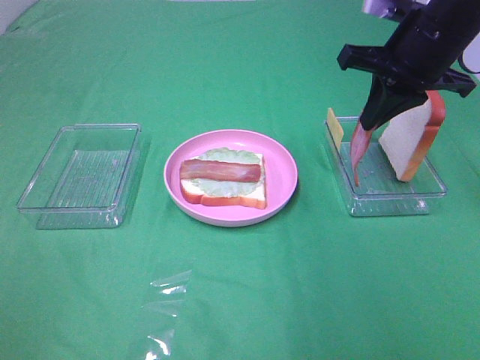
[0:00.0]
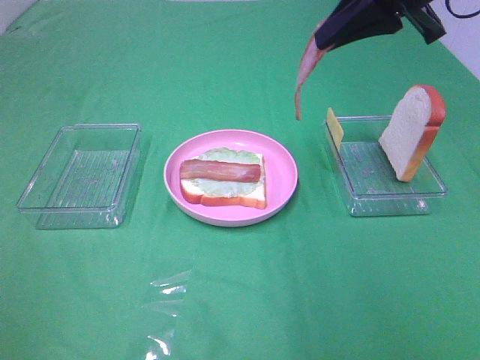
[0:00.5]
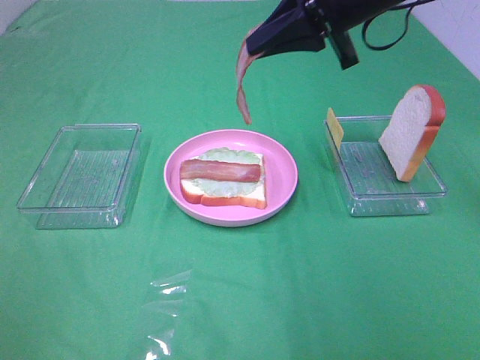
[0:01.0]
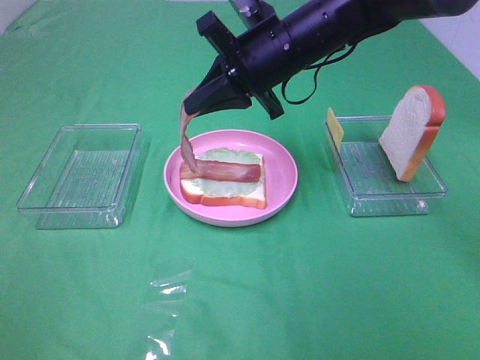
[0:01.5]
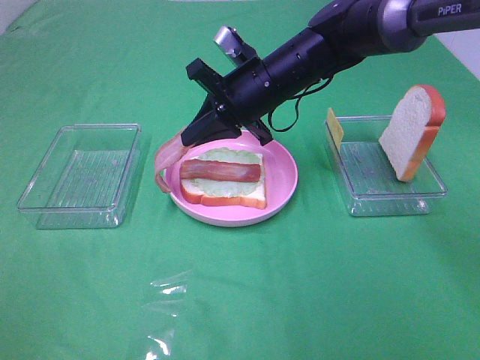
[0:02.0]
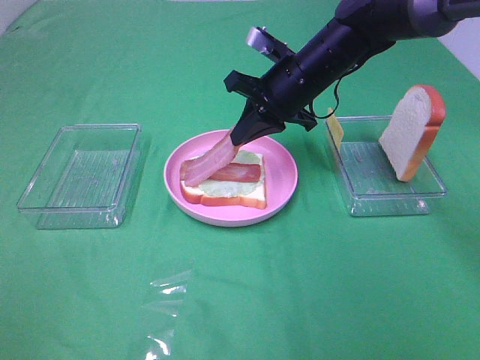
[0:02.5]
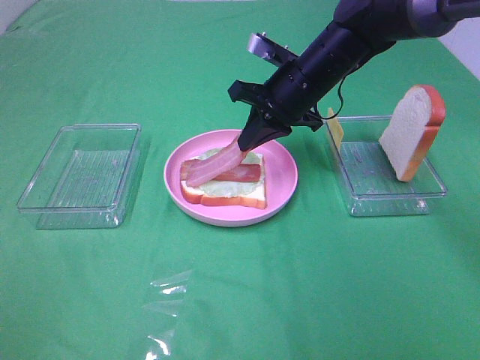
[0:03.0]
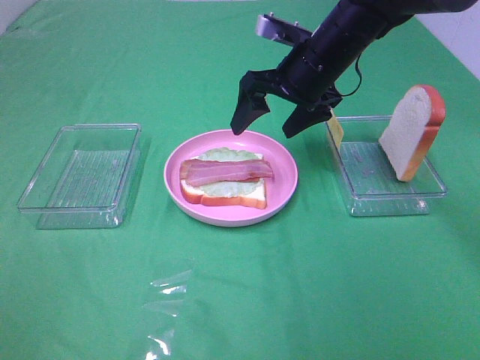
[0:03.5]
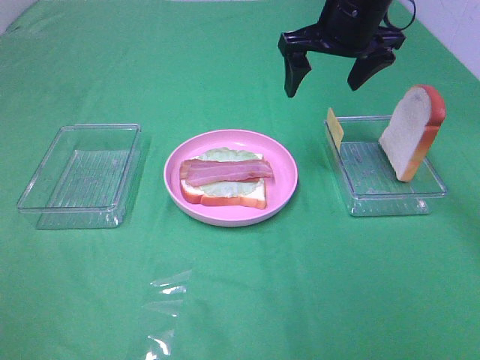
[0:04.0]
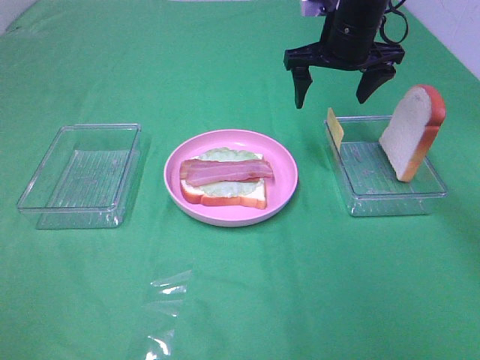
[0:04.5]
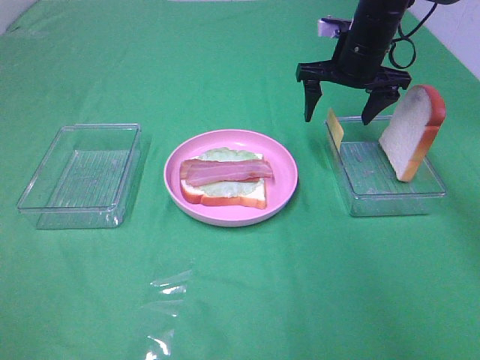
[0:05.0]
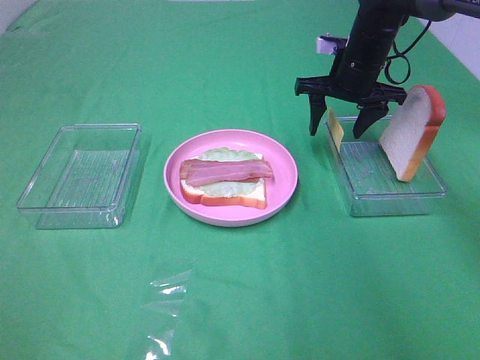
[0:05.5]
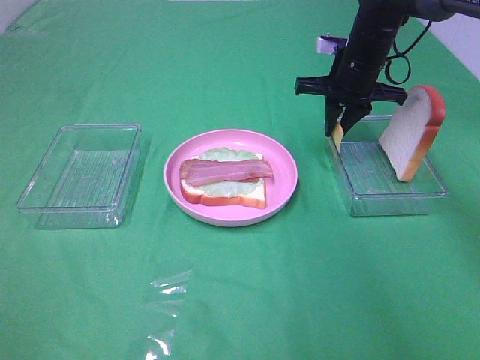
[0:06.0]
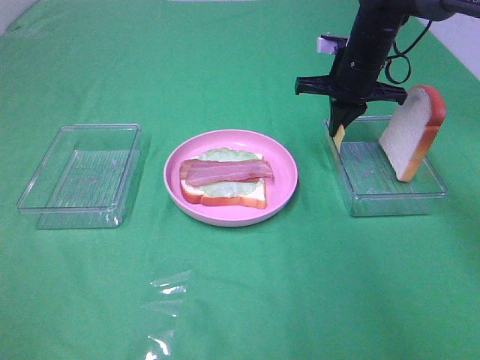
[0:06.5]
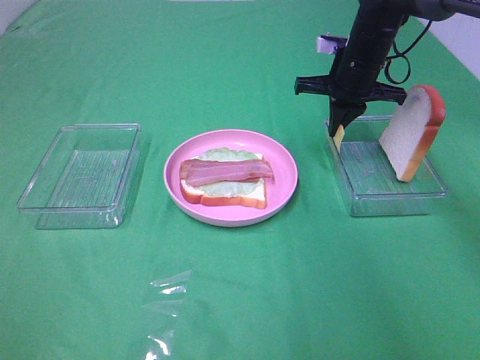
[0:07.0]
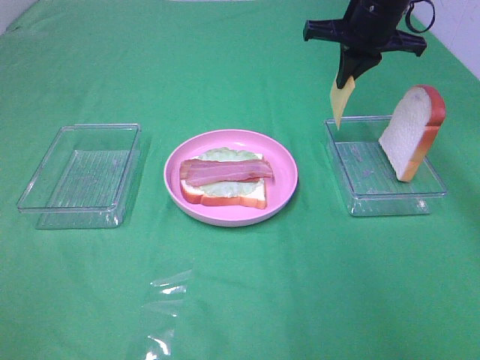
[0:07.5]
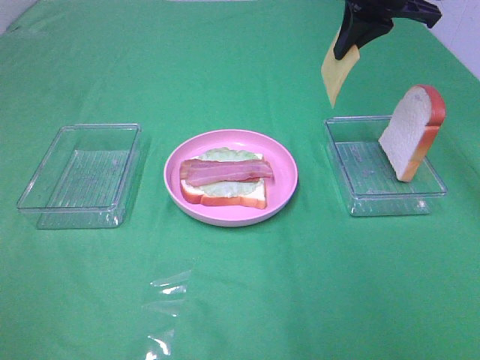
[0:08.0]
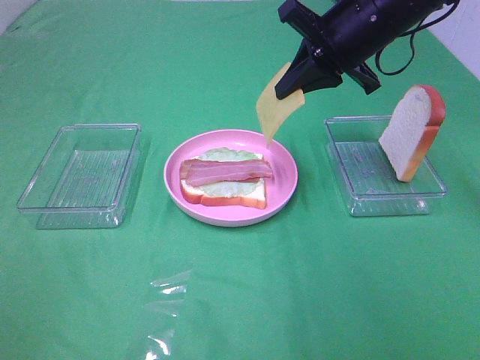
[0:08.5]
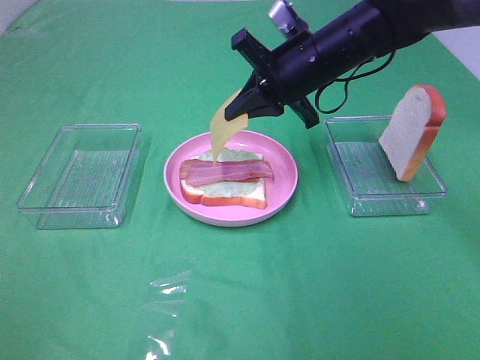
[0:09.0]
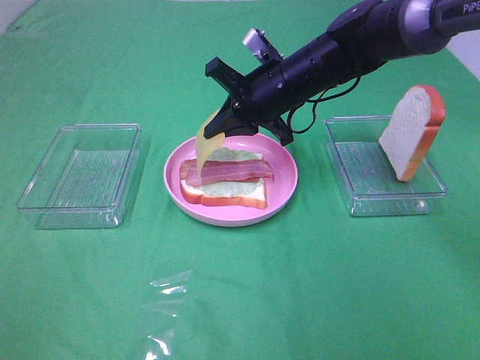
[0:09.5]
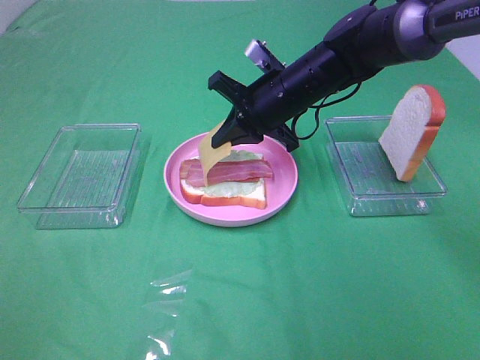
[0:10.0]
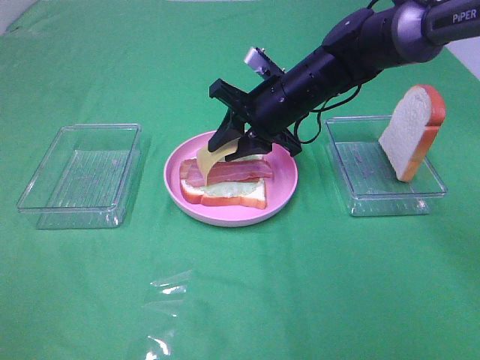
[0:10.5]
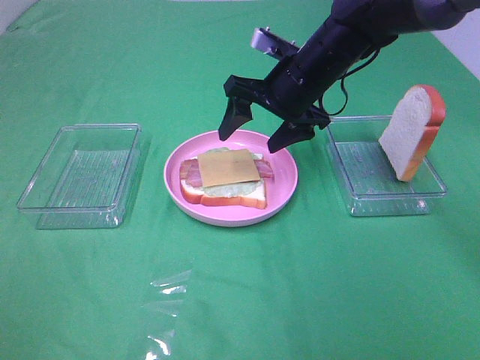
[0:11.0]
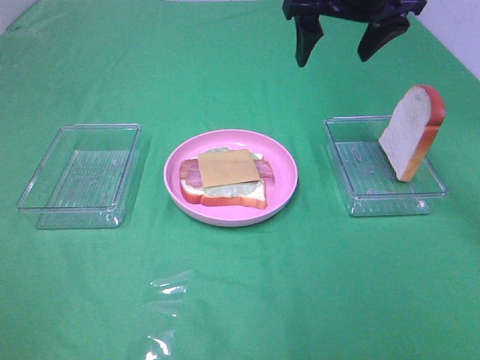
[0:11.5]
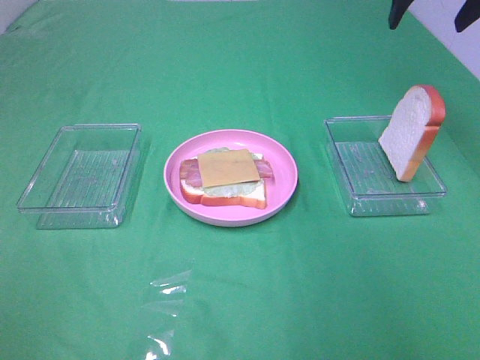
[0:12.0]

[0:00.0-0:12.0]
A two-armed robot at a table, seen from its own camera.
Task of the whole recording: Make sandwiches.
Step, 0:00.0 to 0:03.0: Right hand:place bacon on bacon.
Step, 0:03.5 to 0:06.0: Right hand:grab the cheese slice.
Step, 0:06.5 to 0:11.0: Right hand:place the cheese slice on top of the bacon.
0:00.0 to 0:02.0: The right gripper moves to the left and downward, about 20 cm.
0:02.0 to 0:04.0: The right gripper shifts approximately 15 cm upward and to the right, and opens its fingers.
0:04.0 to 0:06.0: The right gripper shifts roughly 10 cm downward and forward, and closes.
0:06.0 to 0:08.0: The right gripper is displaced upward and backward by some 15 cm.
0:08.0 to 0:10.0: The right gripper moves downward and to the left, approximately 20 cm.
0:10.0 to 0:12.0: The right gripper is displaced upward and to the right by approximately 25 cm, and opens.

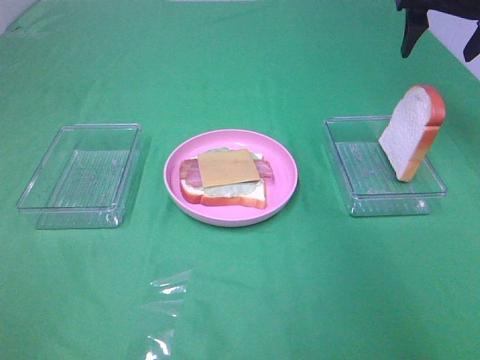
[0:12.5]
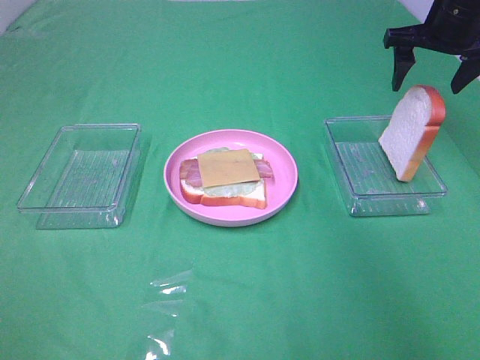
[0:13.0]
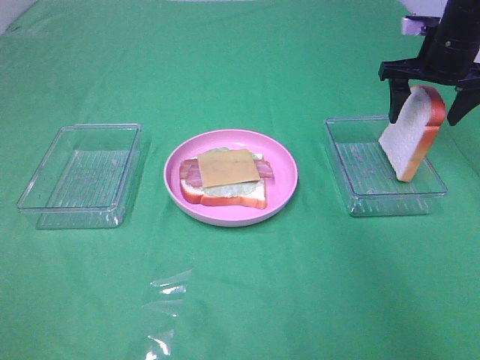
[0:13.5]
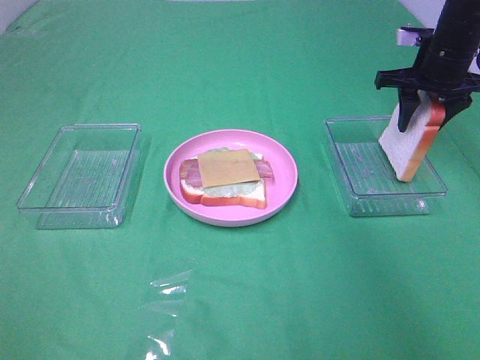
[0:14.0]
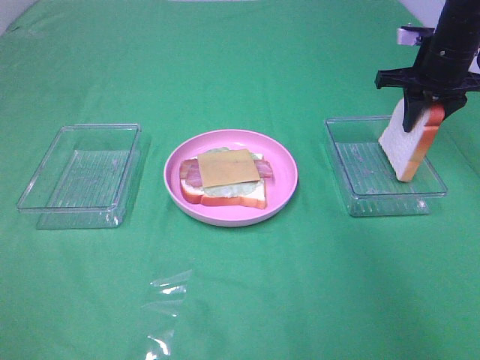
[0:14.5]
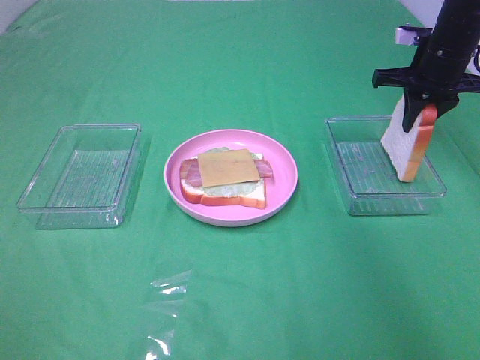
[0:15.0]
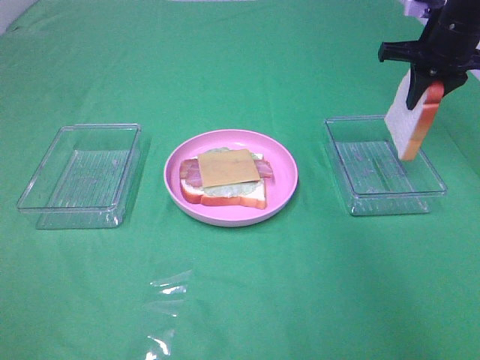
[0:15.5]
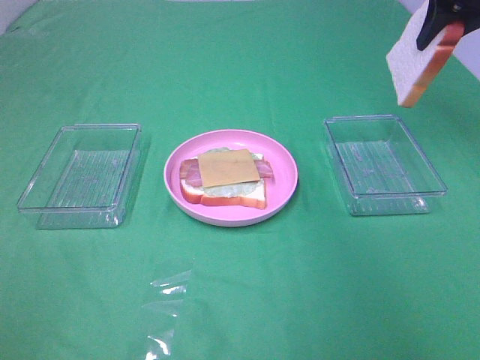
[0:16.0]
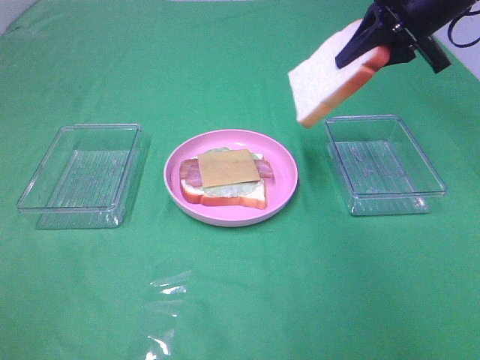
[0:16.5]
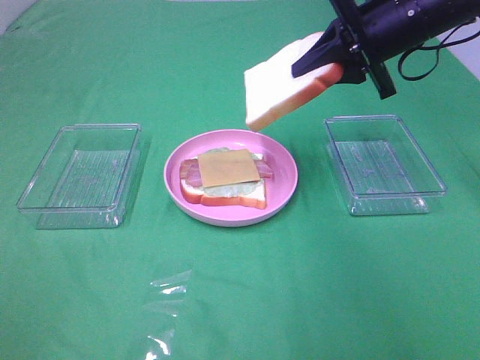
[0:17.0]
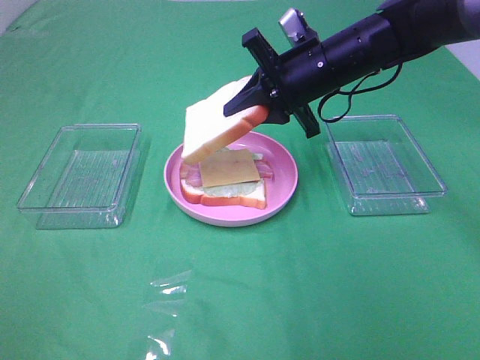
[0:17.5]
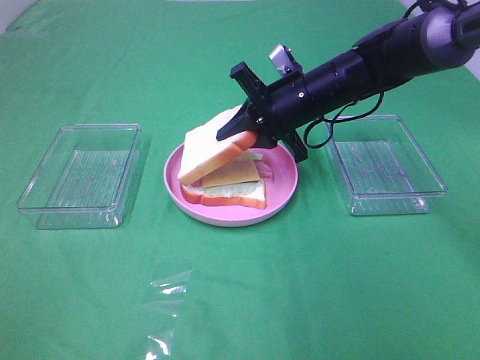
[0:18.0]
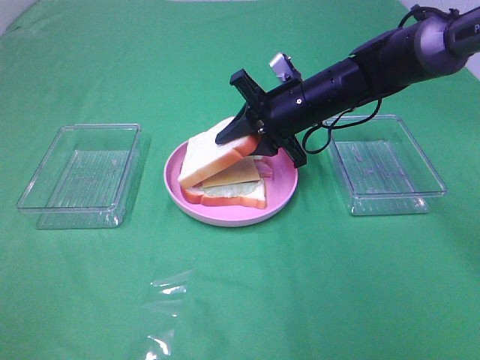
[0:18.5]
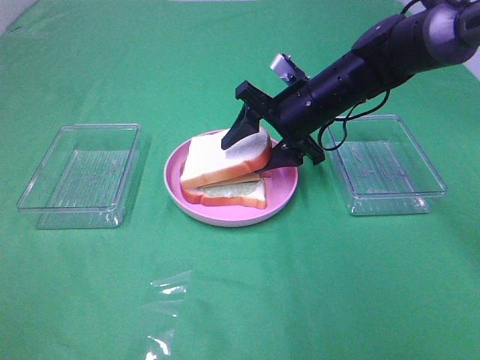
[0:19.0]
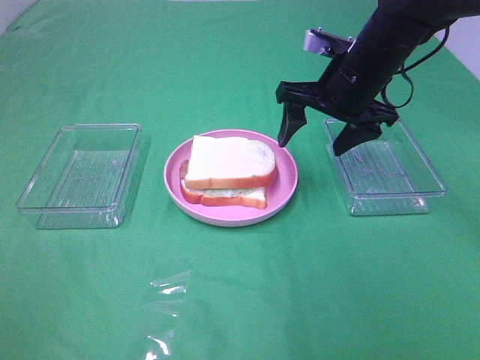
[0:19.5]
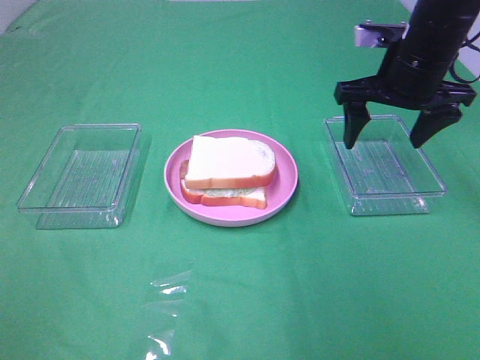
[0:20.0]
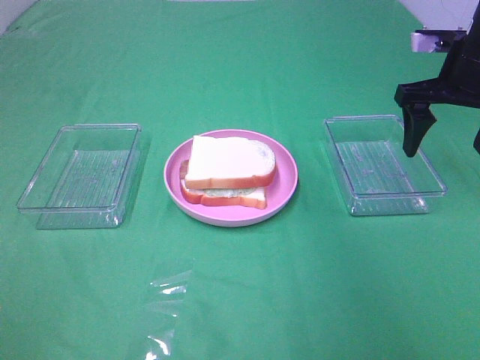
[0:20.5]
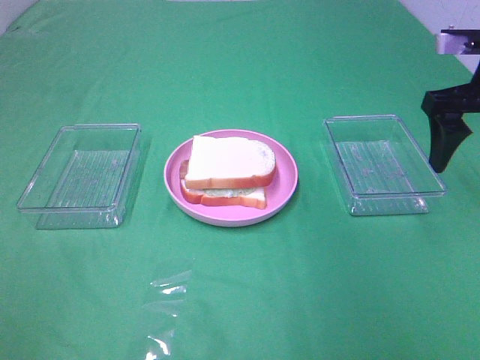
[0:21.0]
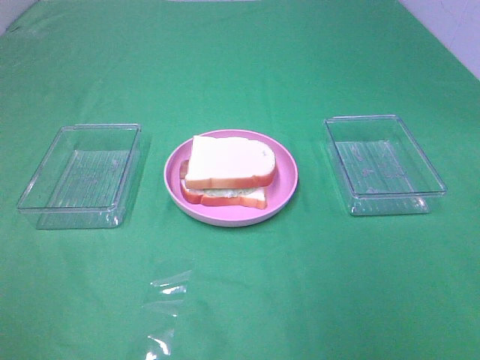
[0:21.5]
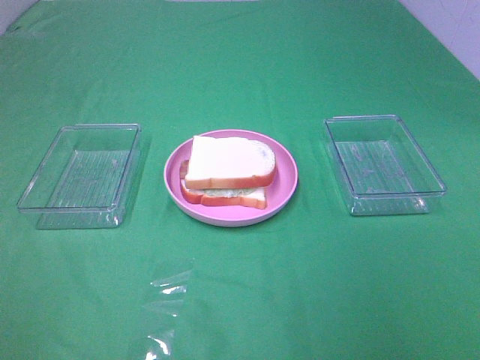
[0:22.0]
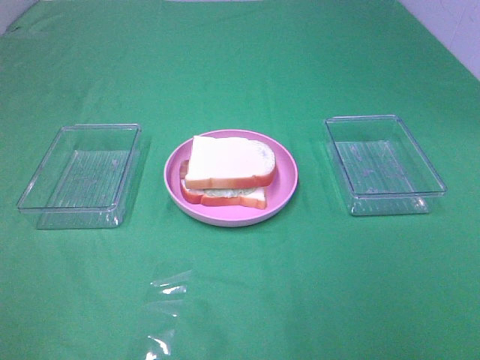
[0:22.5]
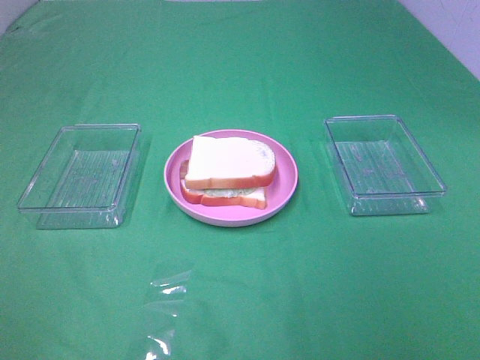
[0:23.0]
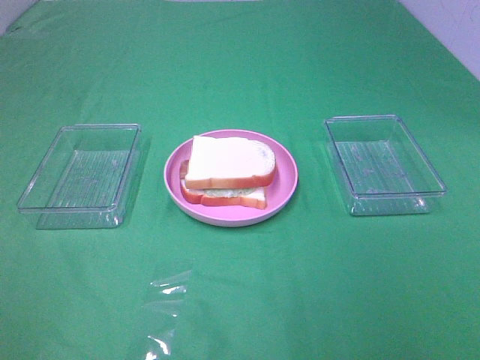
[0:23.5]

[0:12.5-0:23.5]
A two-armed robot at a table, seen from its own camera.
Task of the whole recording: Make sandwiches.
Step, 0:12.5 to 0:14.5: Right hand:grab the bread slice.
Step, 0:15.0 to 0:19.0: Right hand:place the bread slice on the cheese slice.
0:12.5 to 0:14.5: The right gripper shifts approximately 10 cm downward, and closes its fingers.
0:14.5 to 0:16.0: The right gripper heads upward, covering approximately 15 cm.
0:16.0 to 0:18.0: The right gripper shifts roughly 25 cm downward and to the left.
0:18.0 to 0:20.0: The right gripper goes about 15 cm to the right and upward, and opens.
0:20.0 to 0:21.5: The right gripper moves backward, roughly 20 cm.
